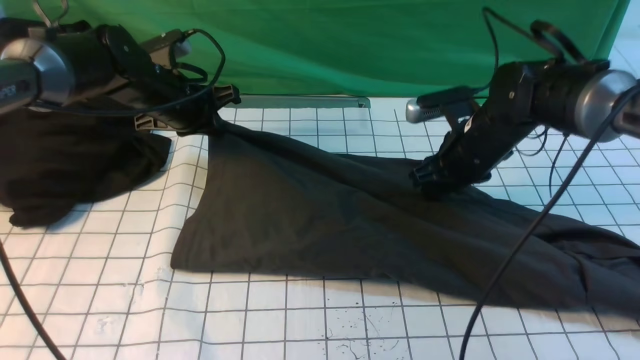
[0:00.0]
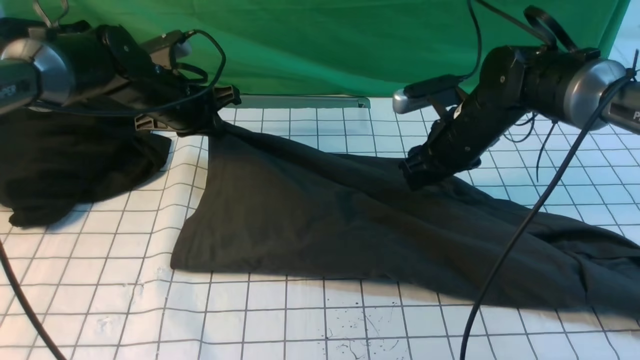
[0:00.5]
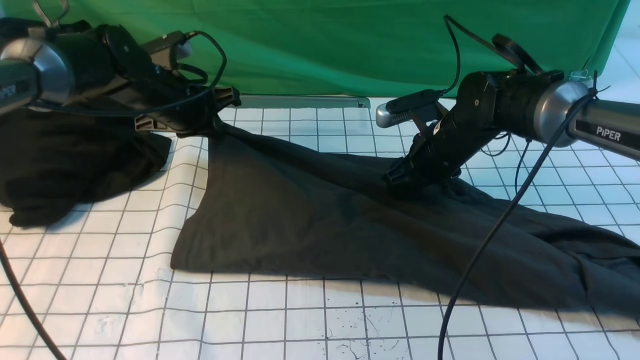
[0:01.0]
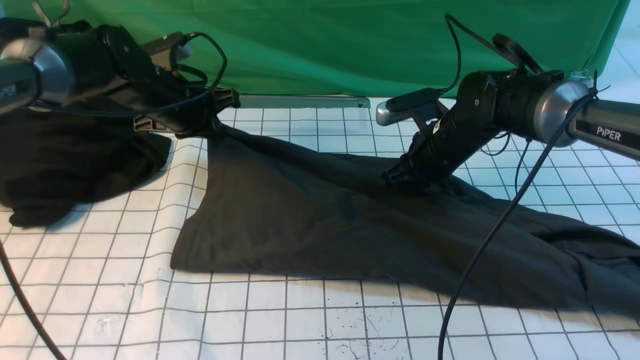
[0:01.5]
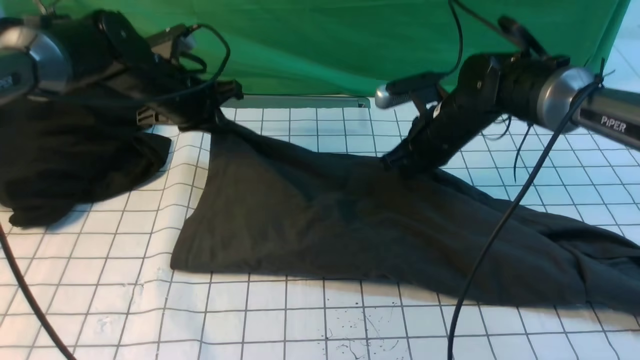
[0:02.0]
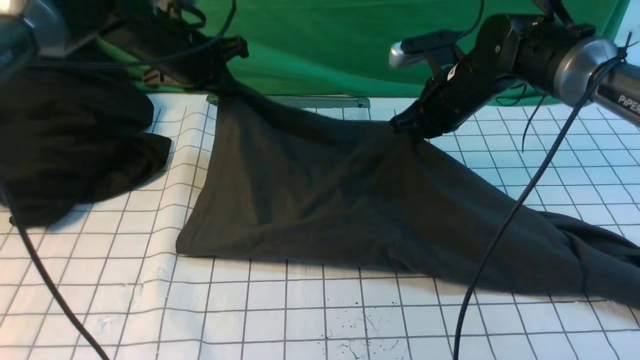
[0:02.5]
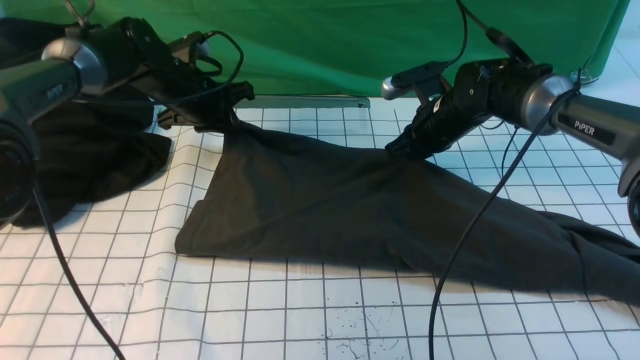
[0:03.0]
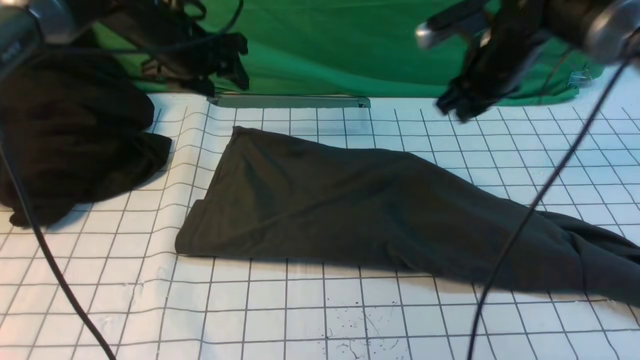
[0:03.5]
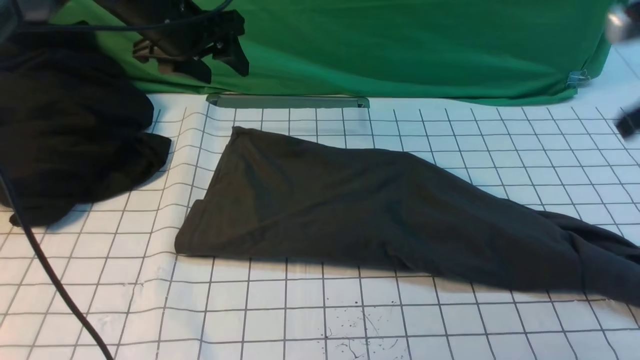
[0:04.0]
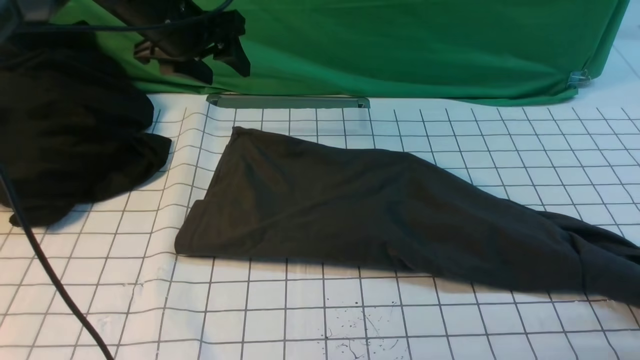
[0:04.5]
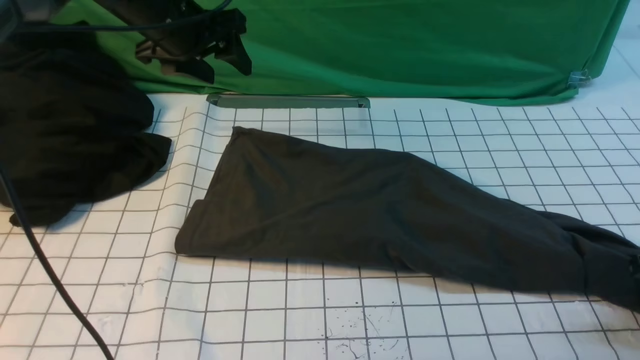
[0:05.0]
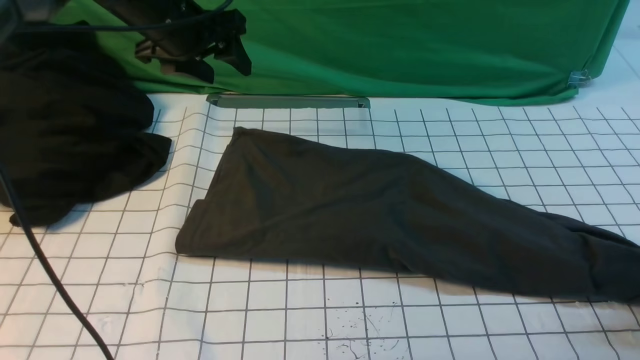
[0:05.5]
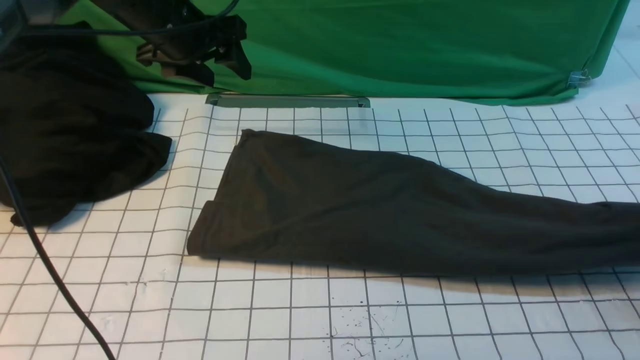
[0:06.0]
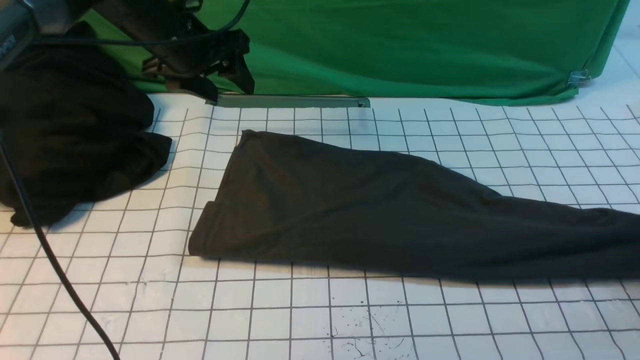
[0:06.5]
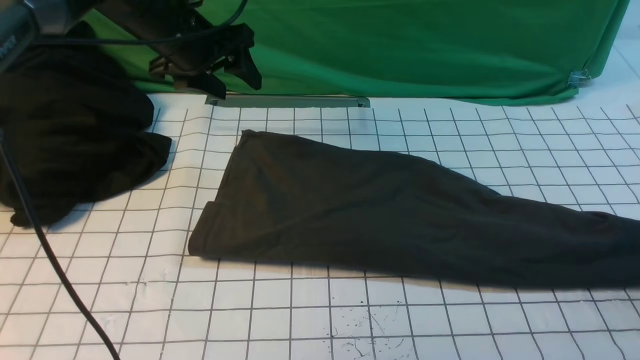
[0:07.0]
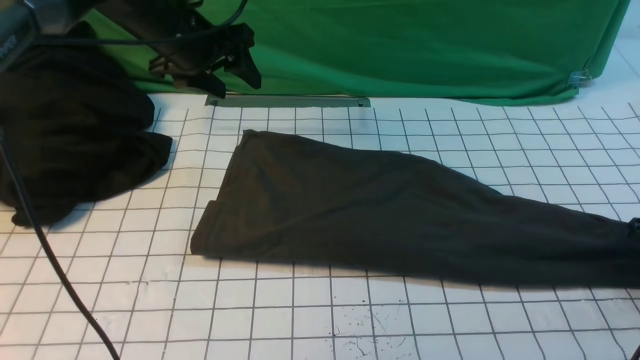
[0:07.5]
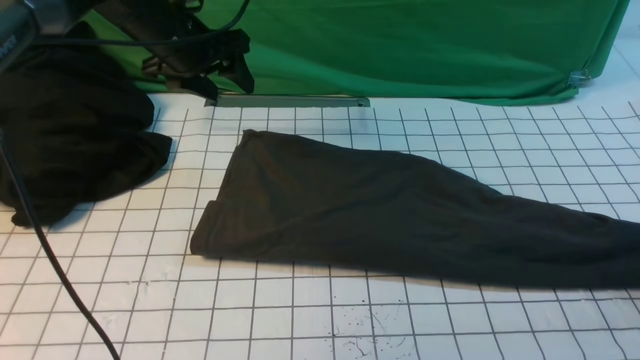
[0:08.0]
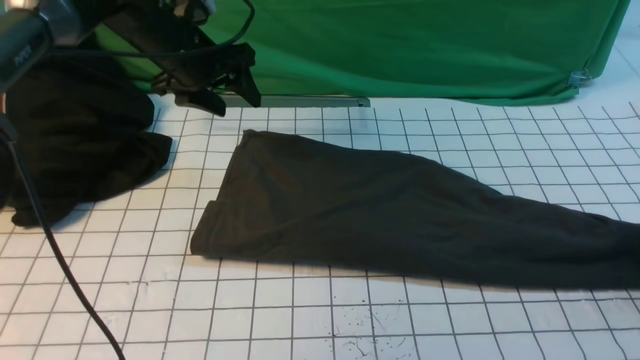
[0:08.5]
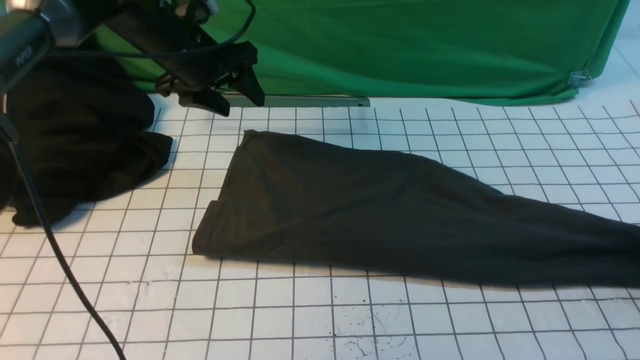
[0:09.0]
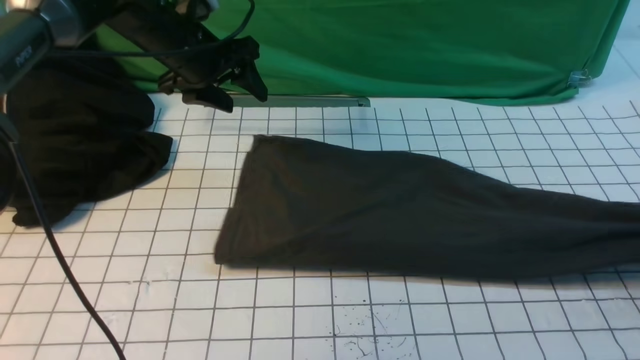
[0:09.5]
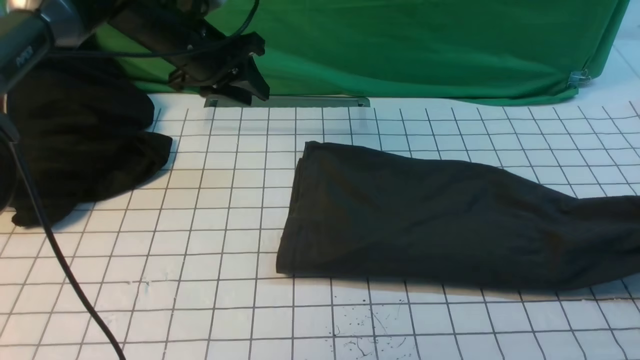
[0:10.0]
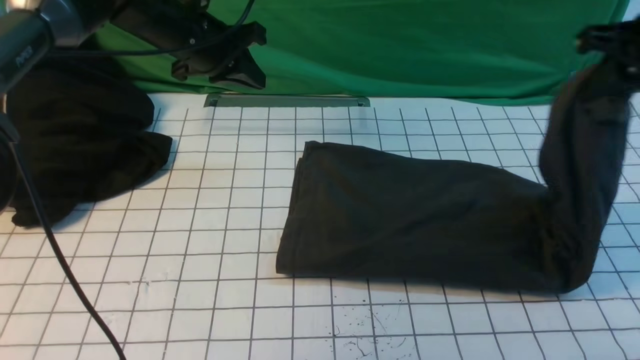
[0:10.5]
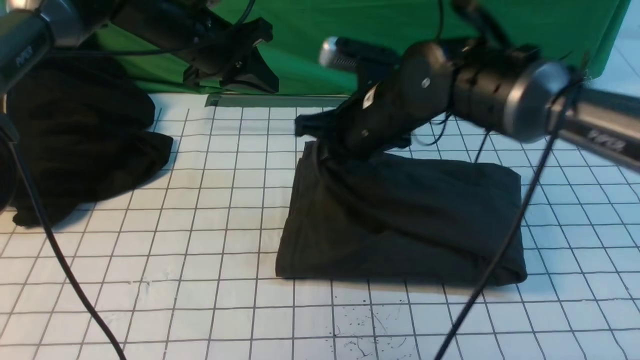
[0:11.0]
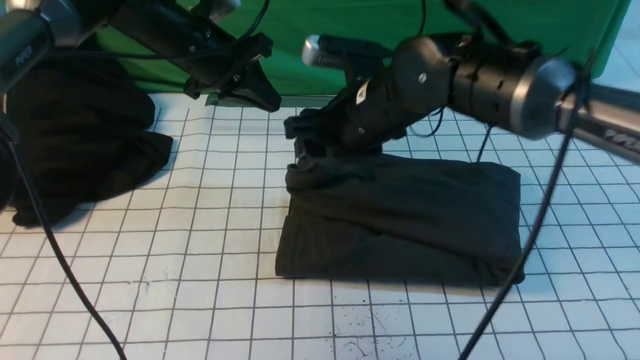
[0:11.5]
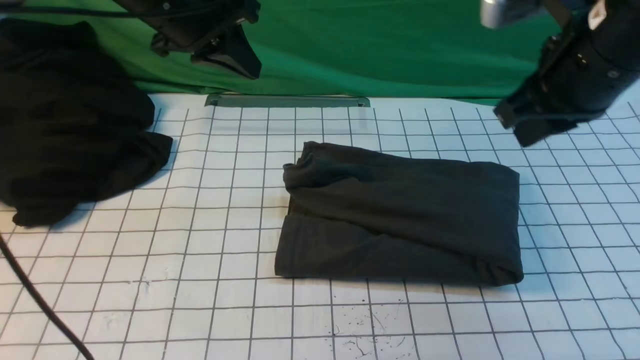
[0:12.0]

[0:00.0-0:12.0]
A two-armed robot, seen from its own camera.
Step, 0:00.0 to 0:03.0: use both arms to drag the lower edge of the fabric forward and fold it over the upper edge.
Step, 0:03.5 to 0:09.0: use the right arm to clamp the right edge of the fabric.
Step, 0:09.5 to 0:11.5: use the right arm to drag the right edge of the fabric to the left and folds it over the left edge.
0:00.0 to 0:02.0: The right gripper closes its fingers.
0:02.0 to 0:04.0: The left gripper heads upward, covering roughly 5 cm, and opens its fingers; the right gripper travels to the right, upward and backward by about 25 cm.
0:04.0 to 0:06.0: The right gripper goes roughly 15 cm downward and to the right, and opens and closes again.
0:06.0 to 0:08.0: The right gripper opens up.
0:08.0 to 0:10.0: The right gripper heads upward, covering some 10 cm, and closes its fingers. The left gripper closes its fingers.
0:10.0 to 0:12.0: The right gripper is displaced to the left by about 30 cm, and opens, then closes again; the left gripper heads backward and upward, covering about 10 cm, and closes its fingers.

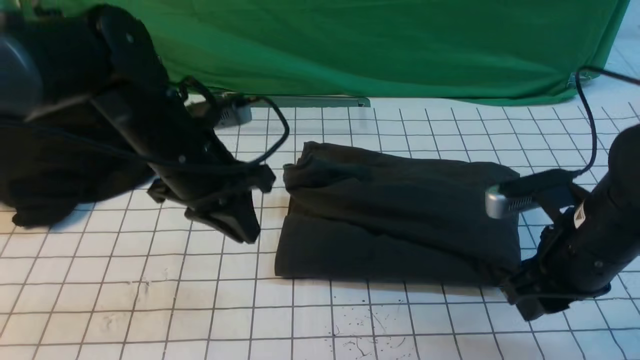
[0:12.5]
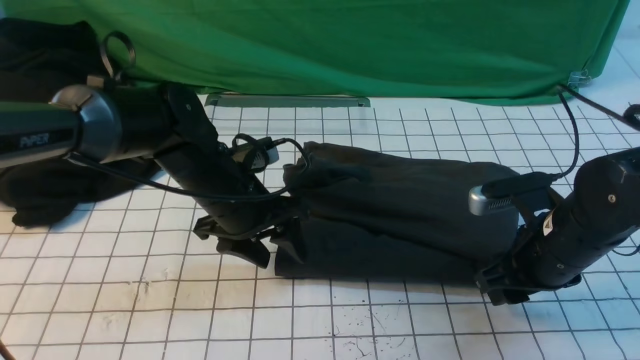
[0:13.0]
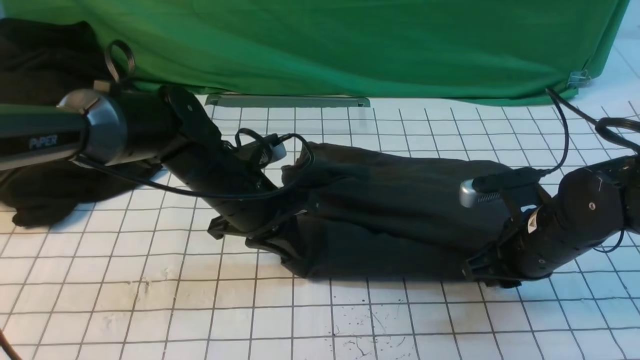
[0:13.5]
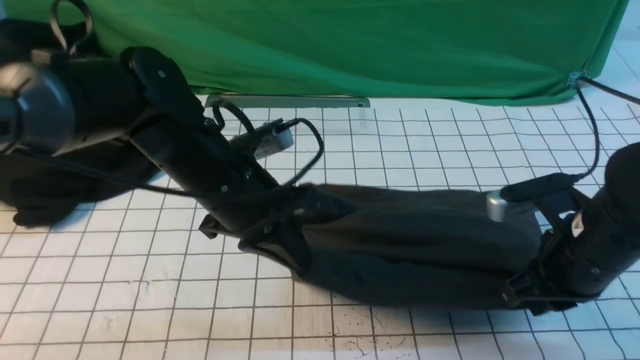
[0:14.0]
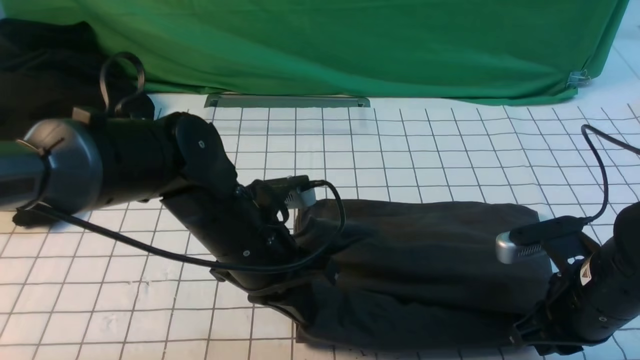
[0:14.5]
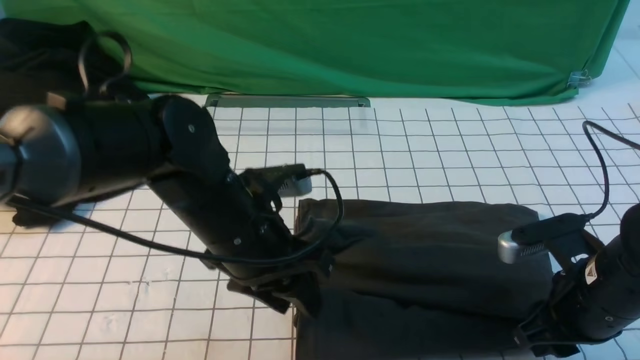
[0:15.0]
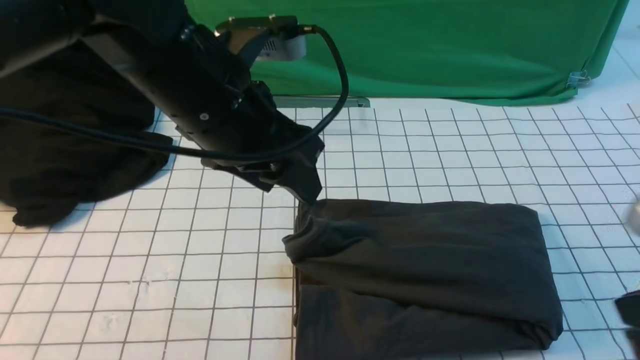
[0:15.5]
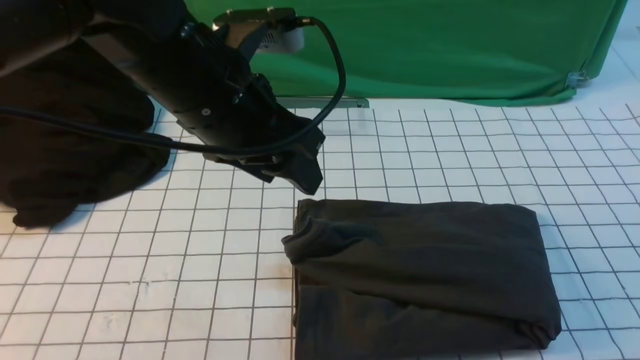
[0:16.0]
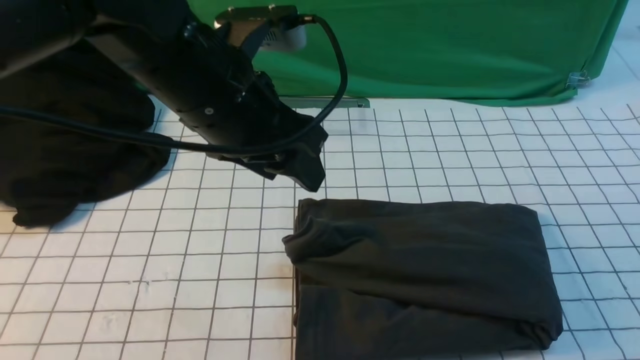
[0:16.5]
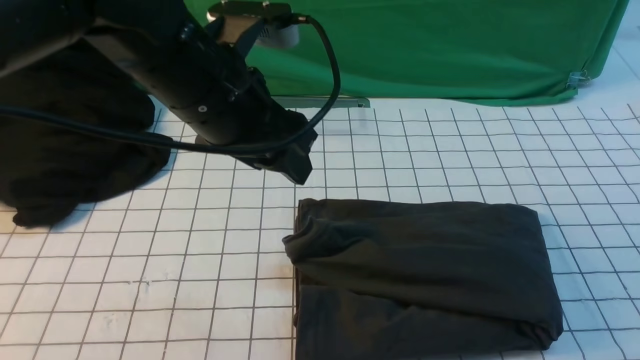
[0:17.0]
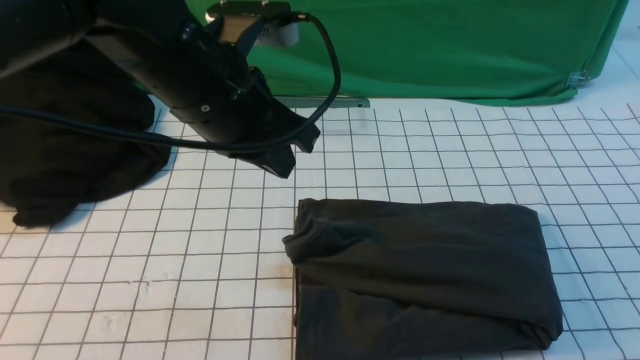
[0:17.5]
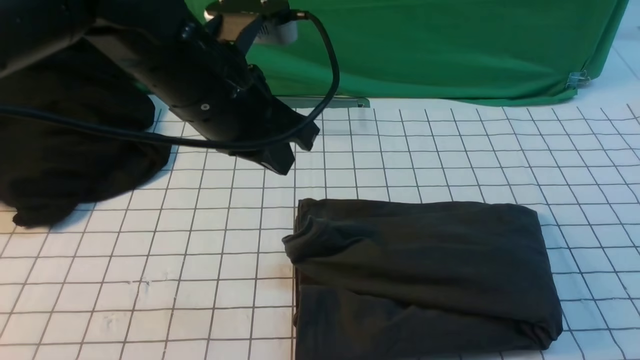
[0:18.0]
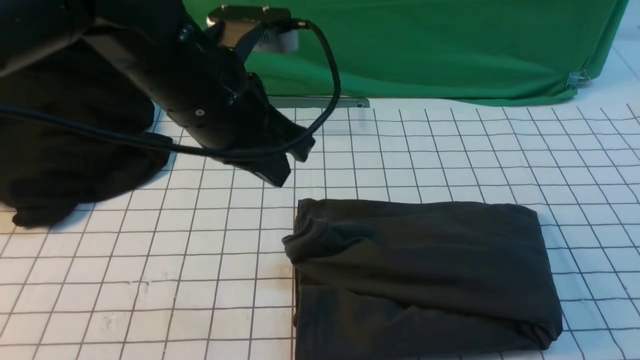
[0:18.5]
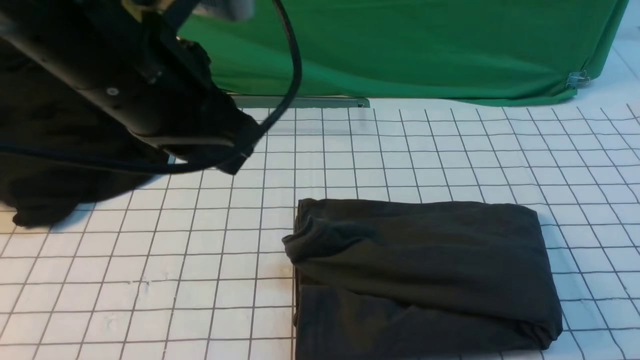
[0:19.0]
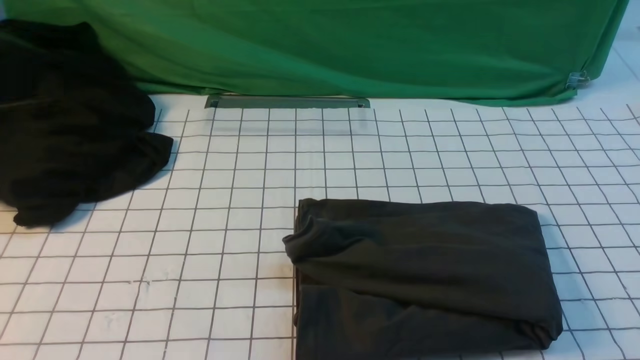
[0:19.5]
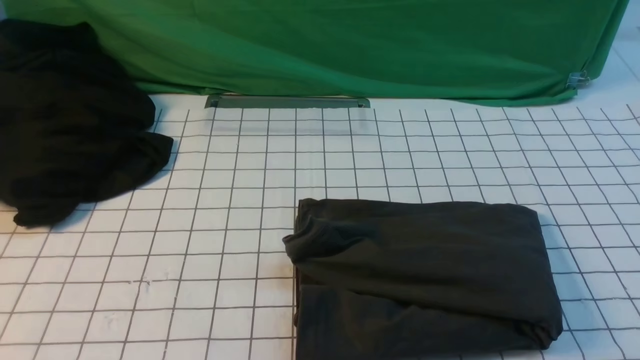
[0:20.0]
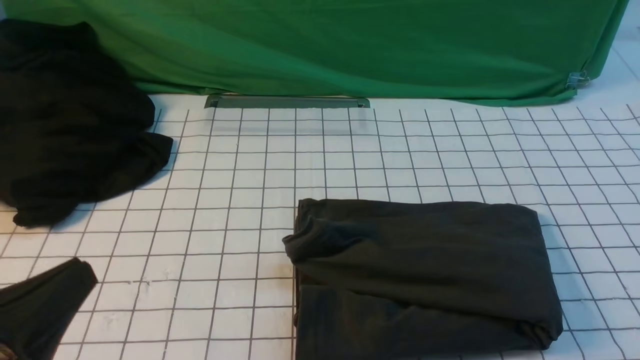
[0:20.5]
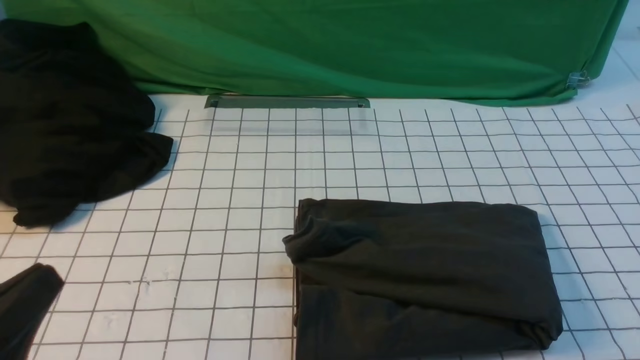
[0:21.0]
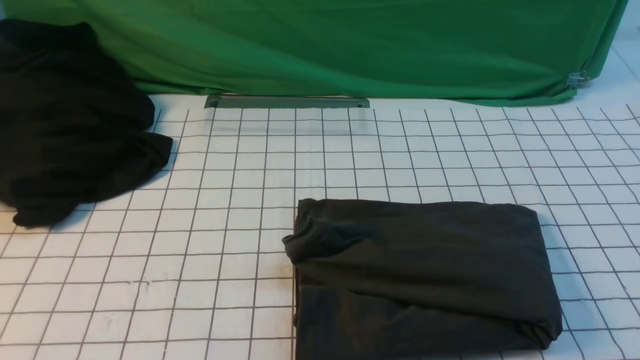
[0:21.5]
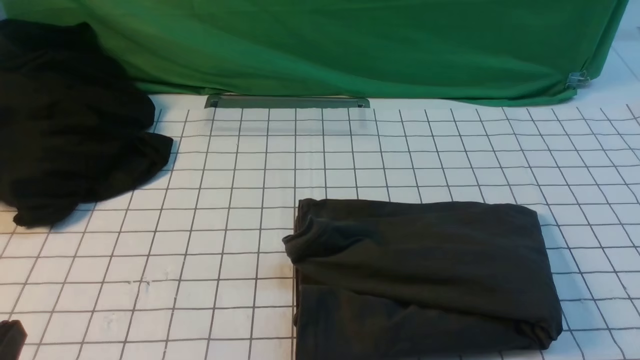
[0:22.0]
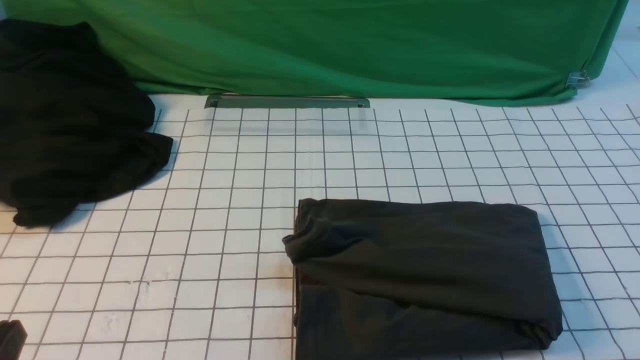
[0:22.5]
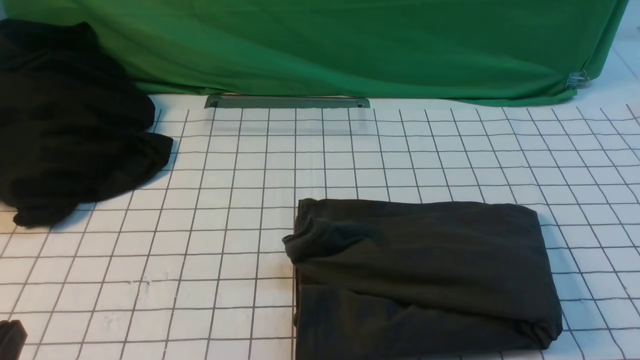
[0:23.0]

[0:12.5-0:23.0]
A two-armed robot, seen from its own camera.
0:12.5 to 0:14.5: The left gripper goes about 10 cm backward and to the right, and opens, then closes once more; the right gripper shifts by approximately 5 cm.
0:14.5 to 0:16.5: The left gripper moves upward, about 15 cm, and opens up. The right gripper moves backward and upward, some 20 cm.
0:16.5 to 0:19.0: The right gripper heads downward, covering approximately 10 cm, while the left gripper is displaced upward and backward by approximately 10 cm, and closes.
0:19.0 to 0:21.0: The left gripper travels backward, downward and to the left by about 25 cm.
0:21.0 to 0:23.0: The left gripper shifts about 5 cm downward.
